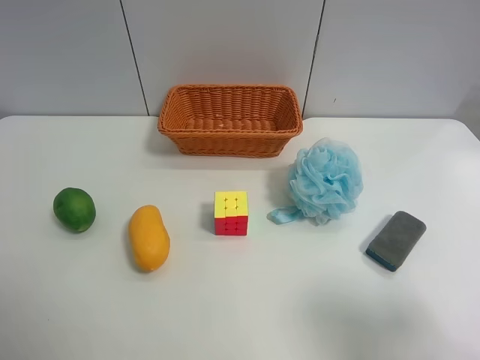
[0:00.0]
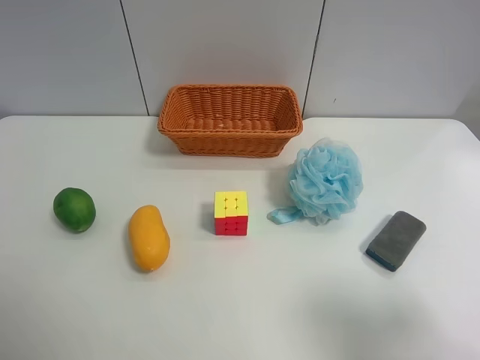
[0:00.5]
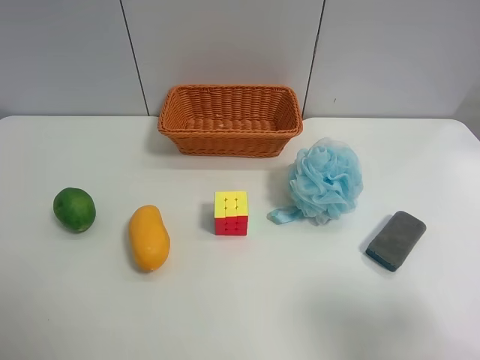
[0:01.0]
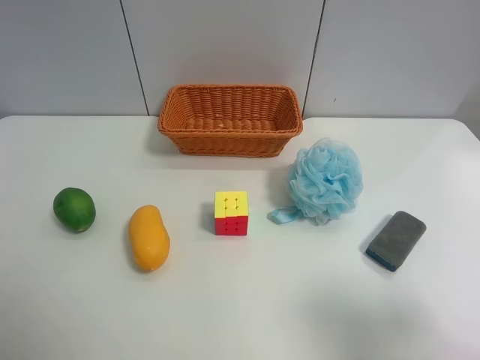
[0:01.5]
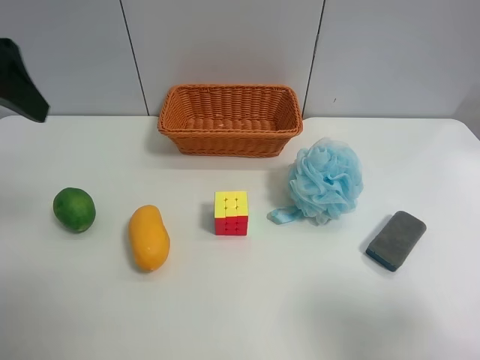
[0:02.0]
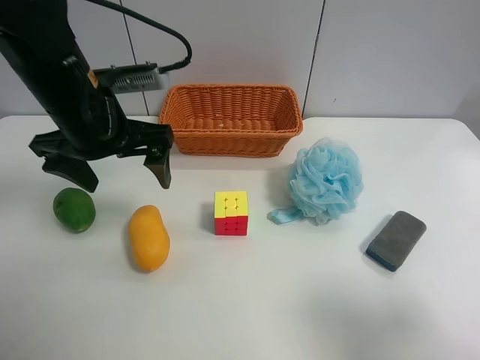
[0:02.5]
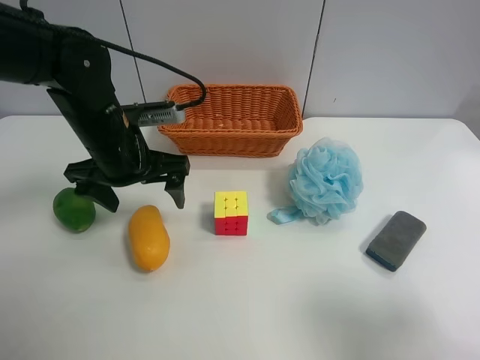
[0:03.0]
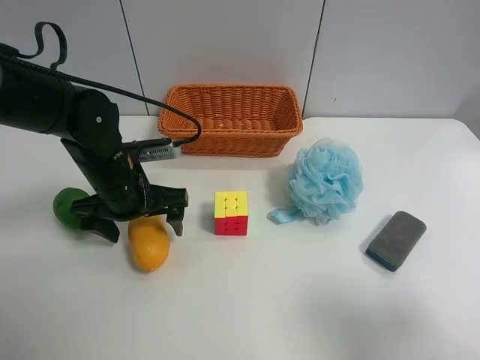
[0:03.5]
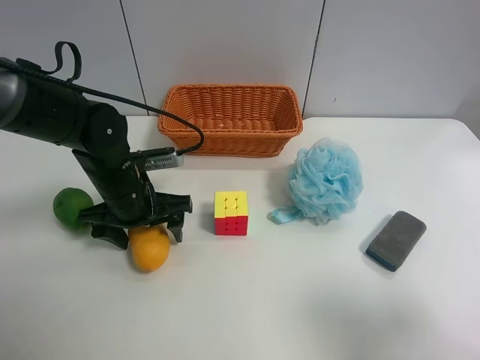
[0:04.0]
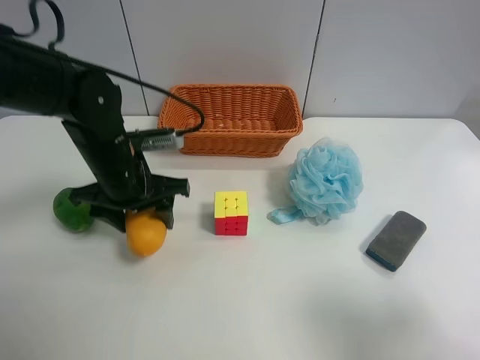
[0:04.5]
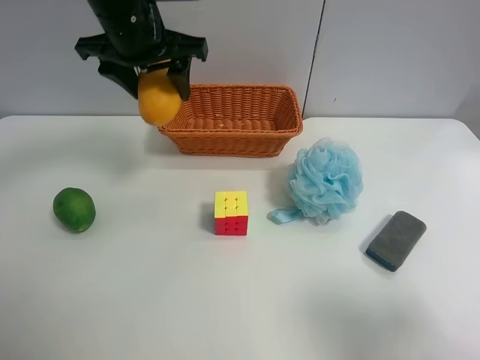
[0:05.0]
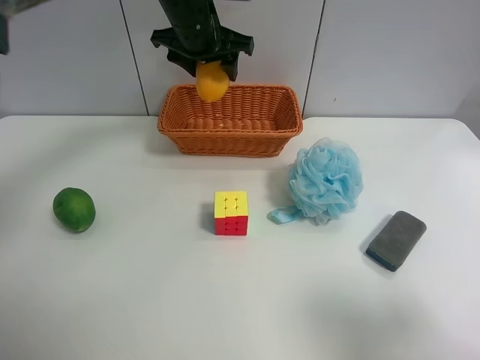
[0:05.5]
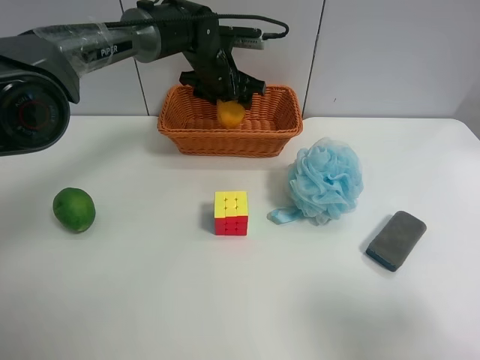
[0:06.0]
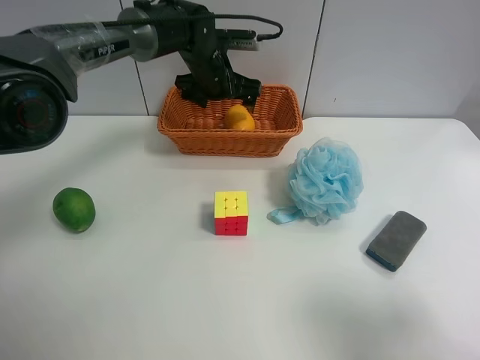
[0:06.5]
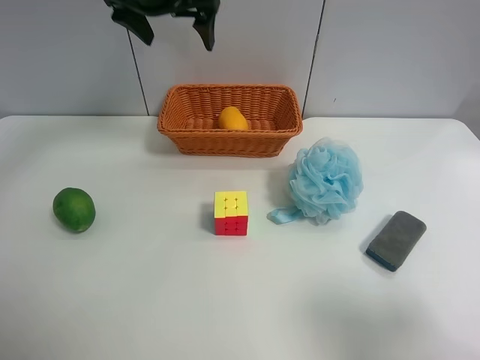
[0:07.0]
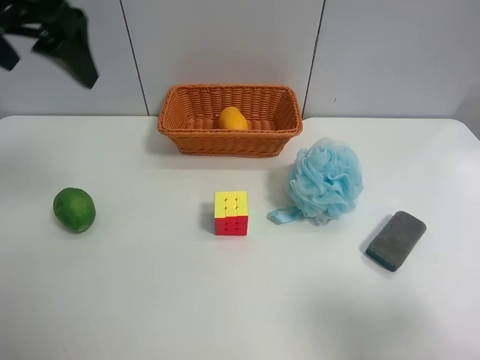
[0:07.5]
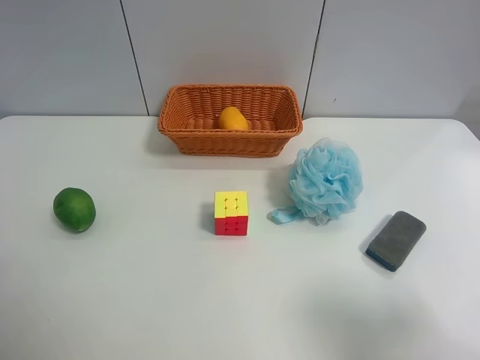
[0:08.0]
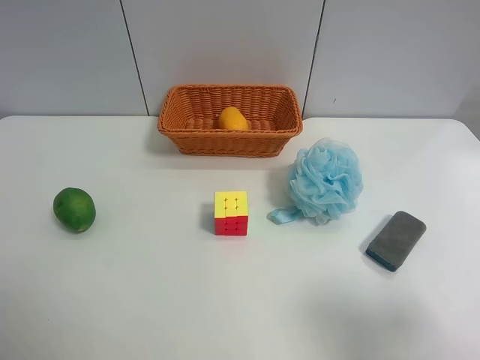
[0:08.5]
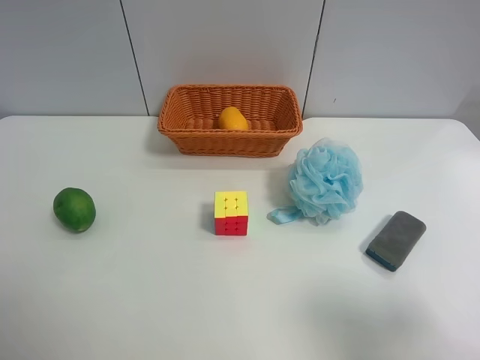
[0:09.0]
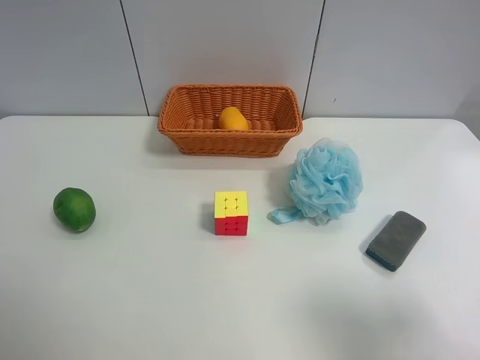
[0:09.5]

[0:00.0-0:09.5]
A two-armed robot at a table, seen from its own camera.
Task of the whole recording: use the left gripper to grab items from the table and place them in the basket.
Step, 0:00.0 to 0:04.0: Grasp the mango with the left gripper.
Step, 0:04.5 to 0:06.5: Place the mango into the basket with the left gripper.
0:00.0 to 0:02.0: The left gripper shifts approximately 20 cm forward.
0:02.0 to 0:04.0: The left gripper is displaced downward and to the right by approximately 25 cm, and closes.
0:04.0 to 0:05.5: The left gripper moves forward, upward and to the right, roughly 25 cm.
0:05.5 to 0:07.5: The left gripper goes some 30 cm backward, to the left and upward, and opens up.
0:07.5 to 0:09.5: The left gripper is displaced backward by roughly 25 cm.
